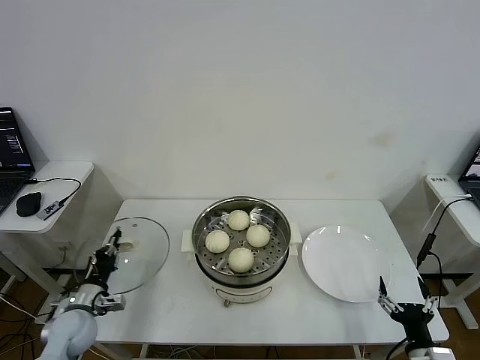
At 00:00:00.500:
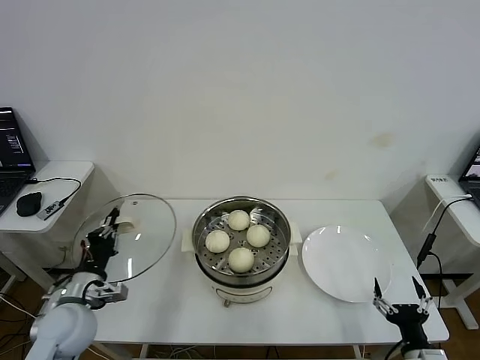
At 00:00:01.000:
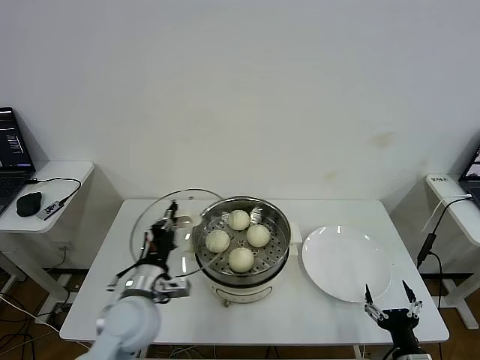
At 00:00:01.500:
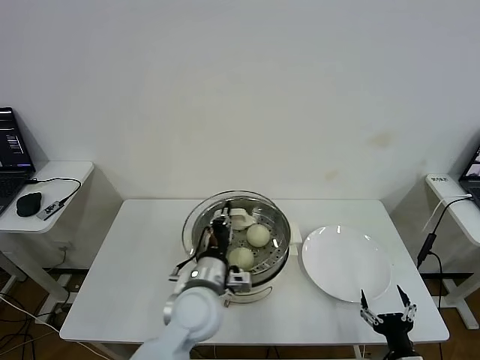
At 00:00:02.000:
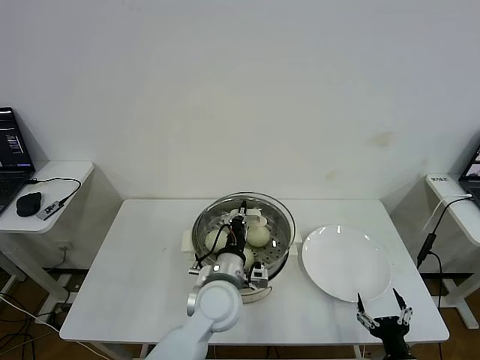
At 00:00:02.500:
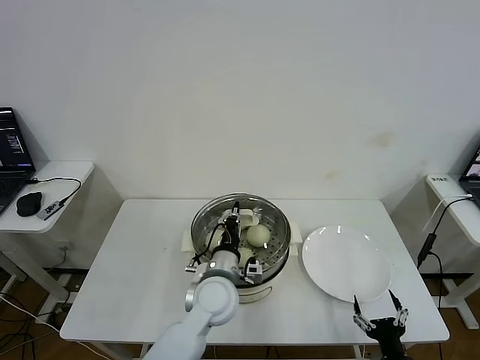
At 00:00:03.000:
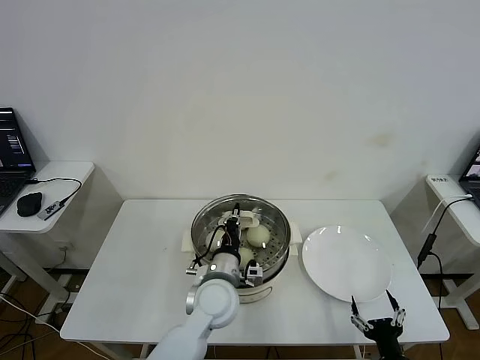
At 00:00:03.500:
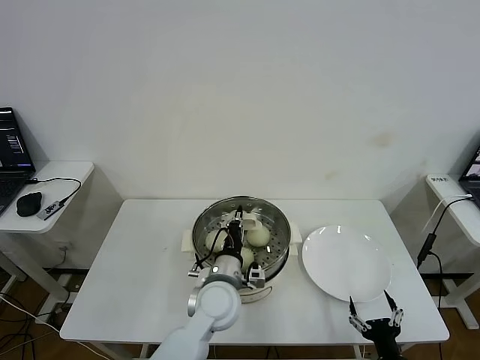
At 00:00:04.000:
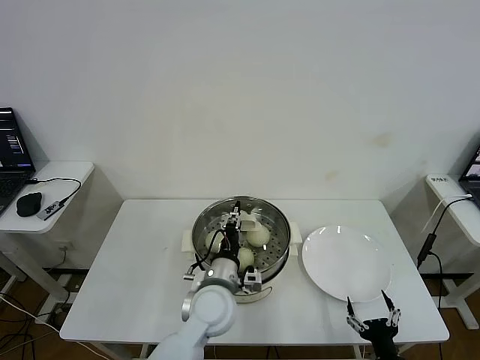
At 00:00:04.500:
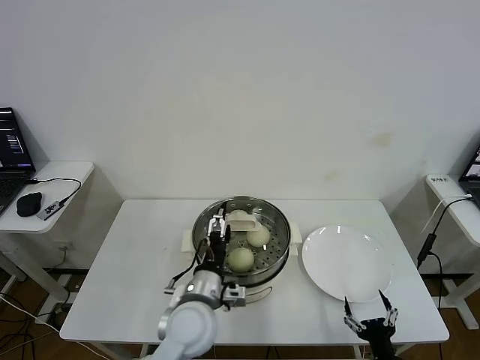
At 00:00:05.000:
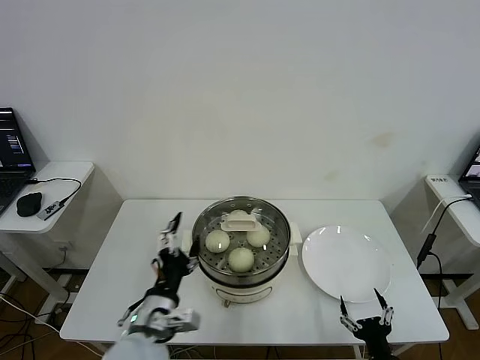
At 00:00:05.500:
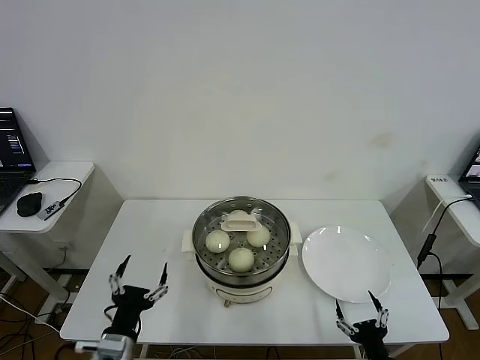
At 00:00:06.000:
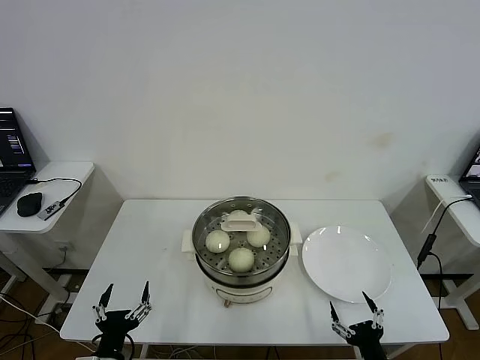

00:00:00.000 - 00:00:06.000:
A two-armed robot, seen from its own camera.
Task of the whole recording: take steamed baozi put them in steamer then cover it.
Step, 00:00:00.000 - 00:00:04.000: Place the pot lid on the steamer with left gripper.
00:00:00.000 - 00:00:02.000: The left gripper is displaced to the right by about 35 cm.
00:00:02.000 - 00:00:04.000: The left gripper opens up.
00:00:04.000 - 00:00:06.000: The left gripper is displaced to the left and backward by some 30 cm, and opens.
